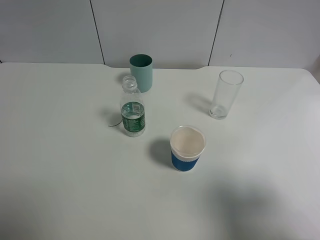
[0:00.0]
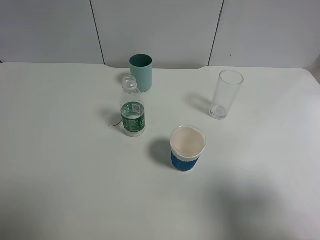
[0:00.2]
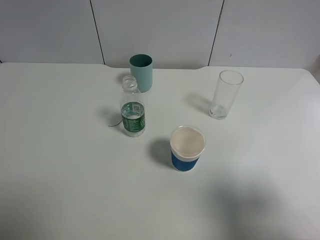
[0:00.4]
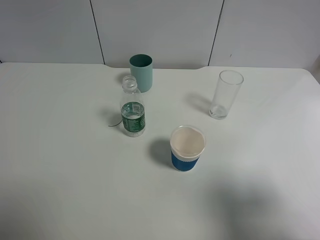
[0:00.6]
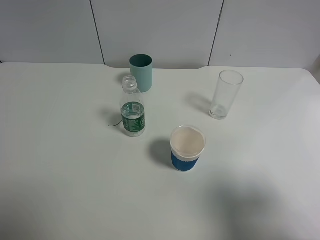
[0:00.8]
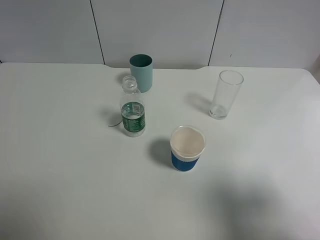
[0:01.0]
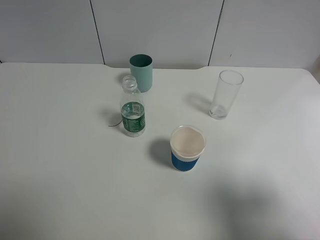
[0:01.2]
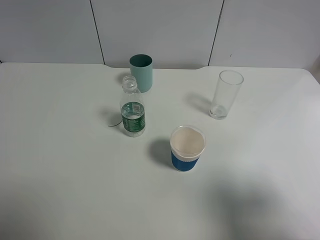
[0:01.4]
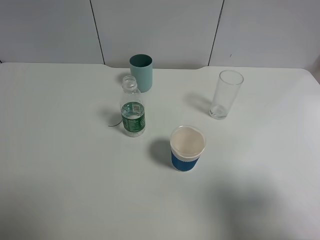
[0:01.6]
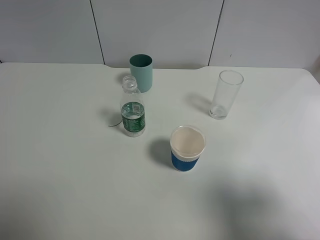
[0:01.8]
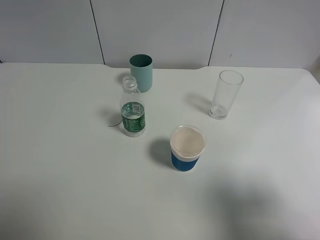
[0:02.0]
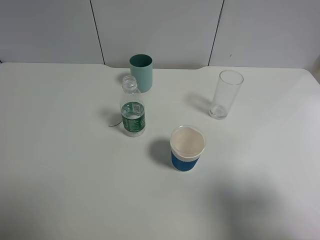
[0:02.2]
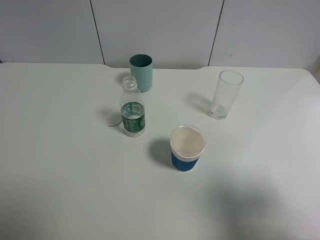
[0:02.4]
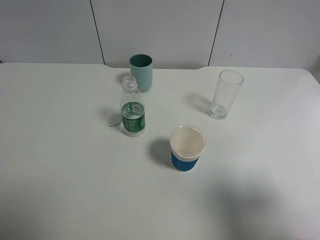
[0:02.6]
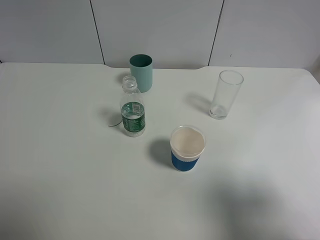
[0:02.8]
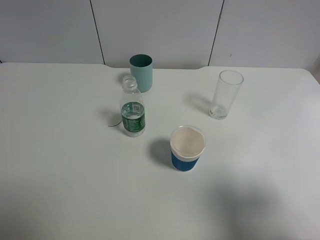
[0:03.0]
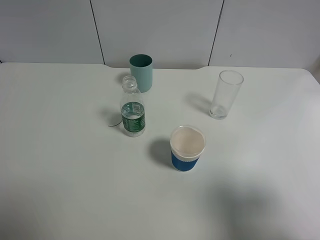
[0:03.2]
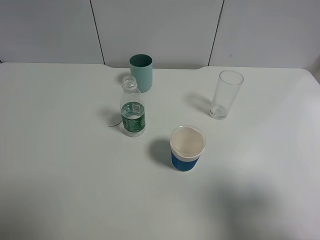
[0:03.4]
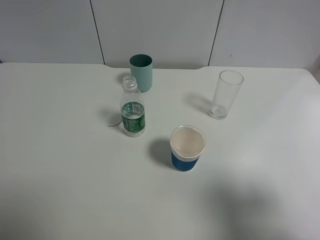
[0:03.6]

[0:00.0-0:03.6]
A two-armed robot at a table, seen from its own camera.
Task of the whole recording: use a gripper to hold the bottle of the drink and pour it into a random cup.
0:01.8 to 0:03.6: The two grippers keep their place.
